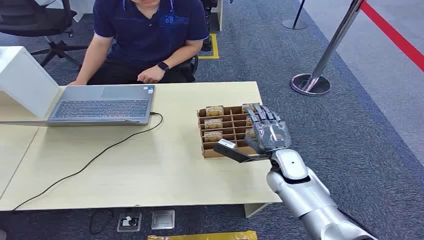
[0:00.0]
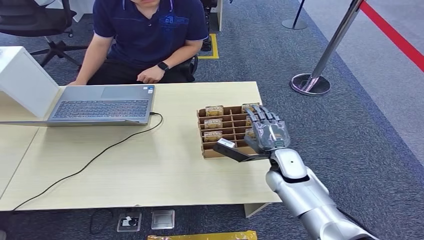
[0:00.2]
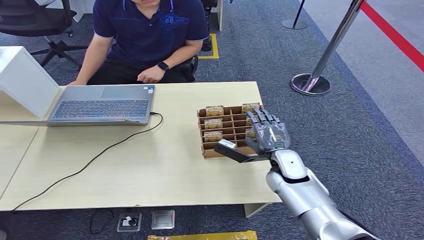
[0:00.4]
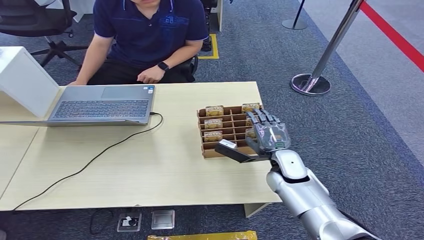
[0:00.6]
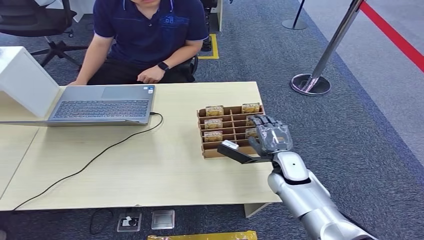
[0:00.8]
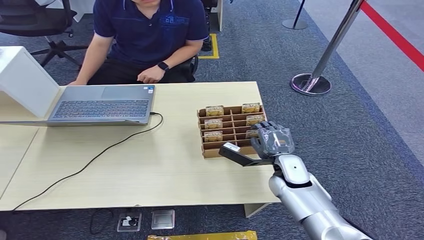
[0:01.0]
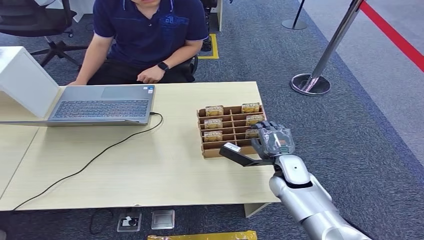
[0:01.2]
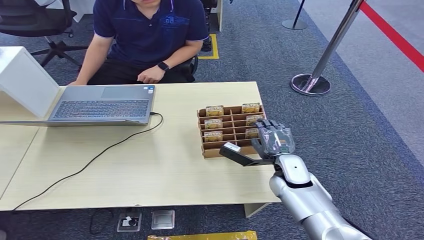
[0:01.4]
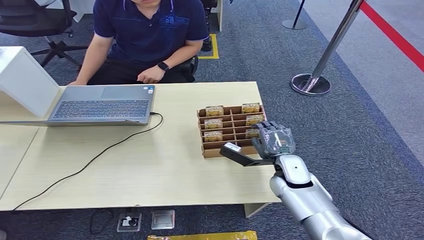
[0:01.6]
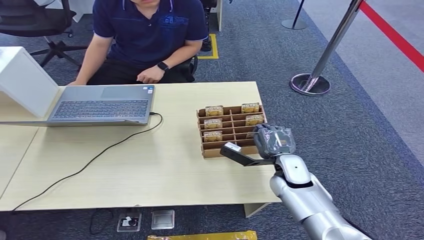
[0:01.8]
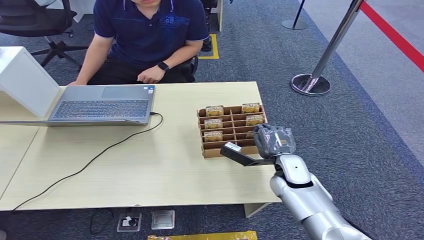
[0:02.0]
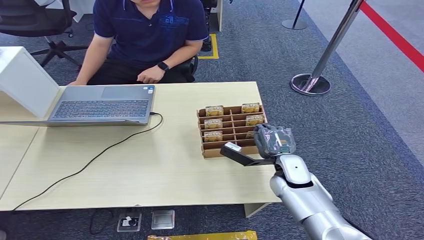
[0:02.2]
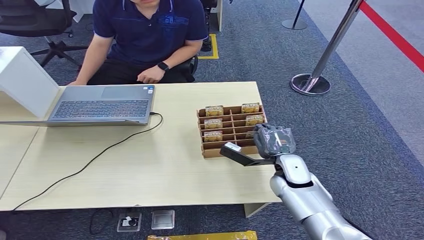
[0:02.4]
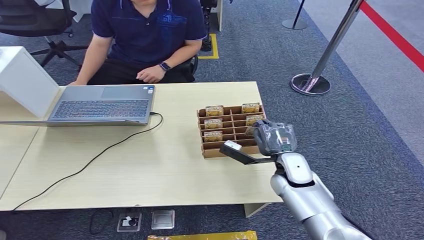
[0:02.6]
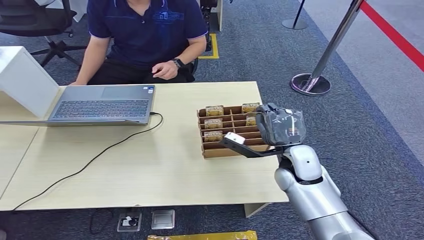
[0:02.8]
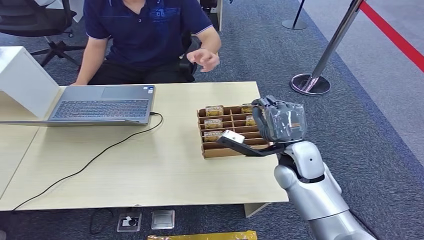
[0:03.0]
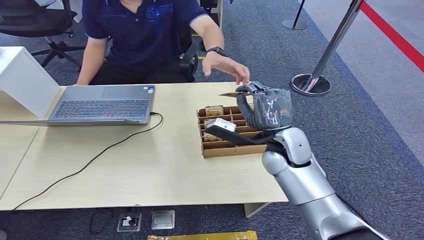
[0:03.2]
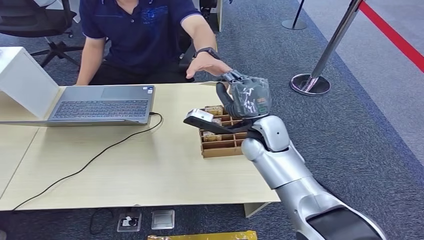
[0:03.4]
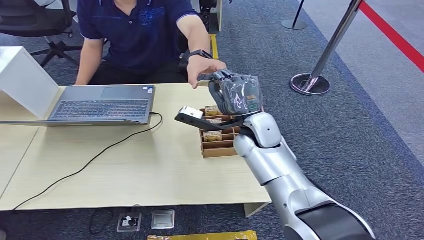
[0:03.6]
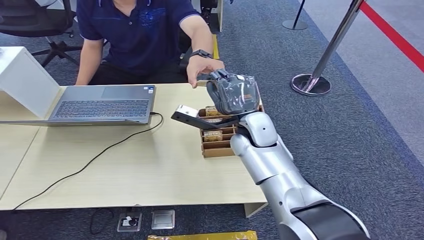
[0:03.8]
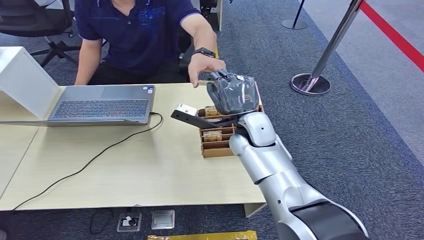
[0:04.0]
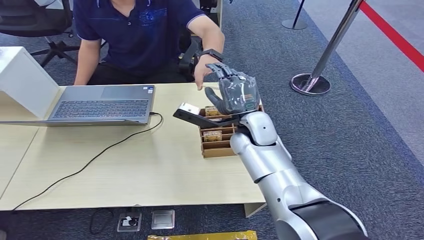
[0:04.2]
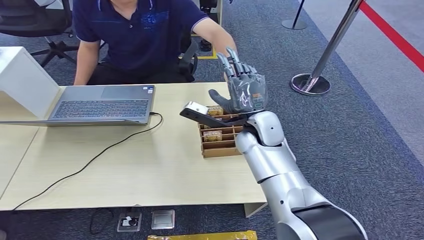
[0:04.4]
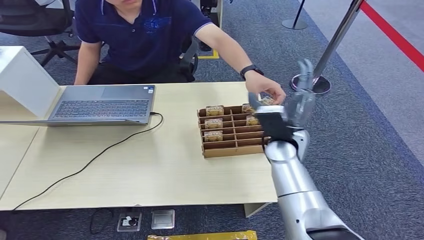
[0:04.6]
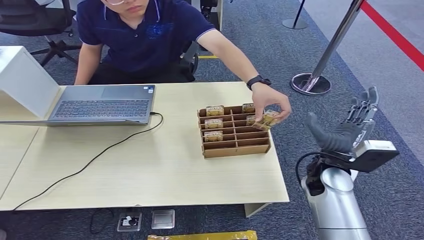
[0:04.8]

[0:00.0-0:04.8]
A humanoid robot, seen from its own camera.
Task of the whole recording: Pick up the card and hand it over to the target person.
Step, 0:00.0 to 0:02.6: Pick up the key card from the card box.
Step, 0:03.0 to 0:04.8: Hand the key card to the target.
0:01.6 to 0:03.2: The right hand travels upward, to the left and forward by approximately 15 cm.
0:03.2 to 0:04.8: The right hand goes about 25 cm to the right and backward.

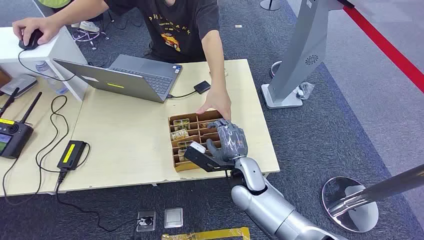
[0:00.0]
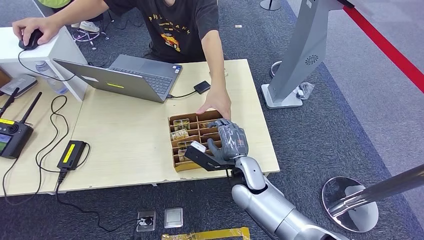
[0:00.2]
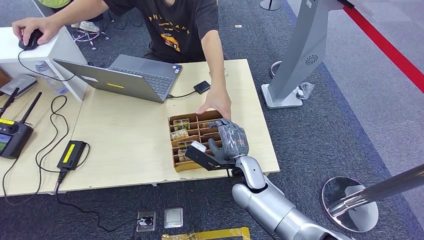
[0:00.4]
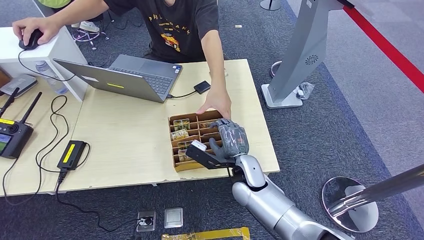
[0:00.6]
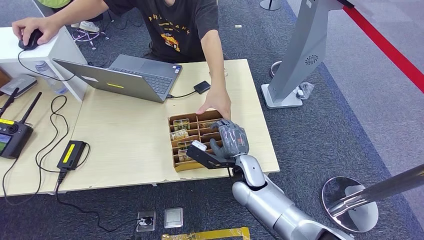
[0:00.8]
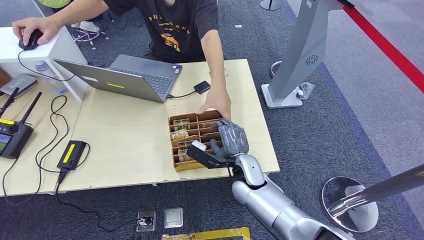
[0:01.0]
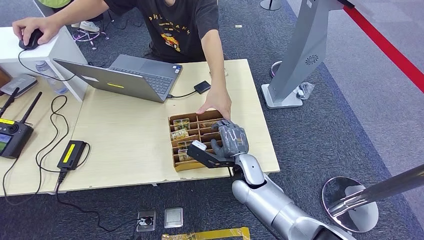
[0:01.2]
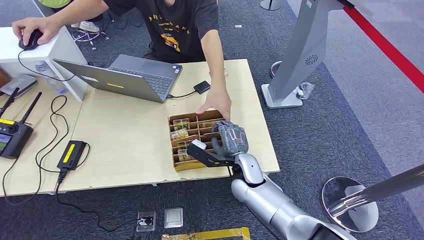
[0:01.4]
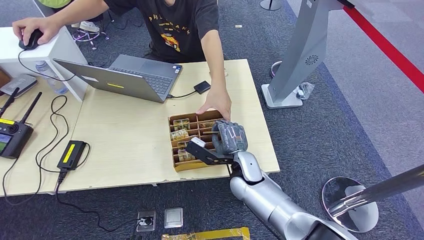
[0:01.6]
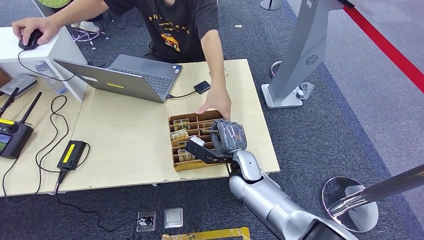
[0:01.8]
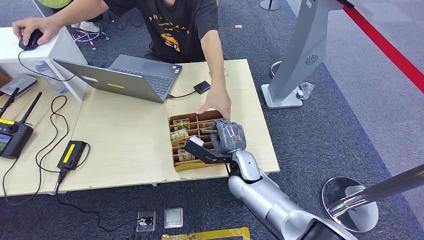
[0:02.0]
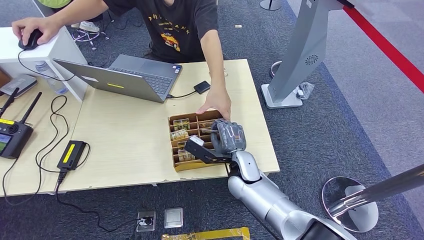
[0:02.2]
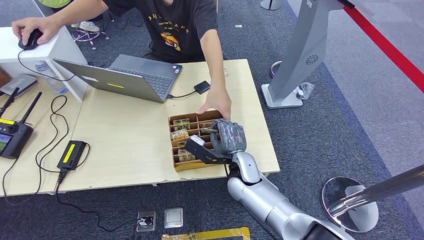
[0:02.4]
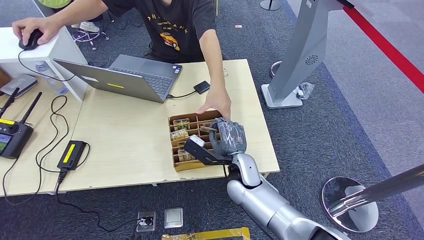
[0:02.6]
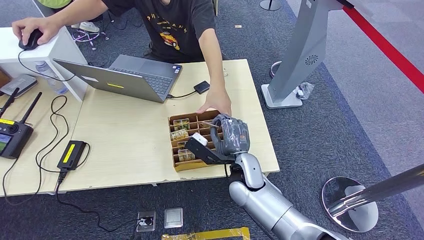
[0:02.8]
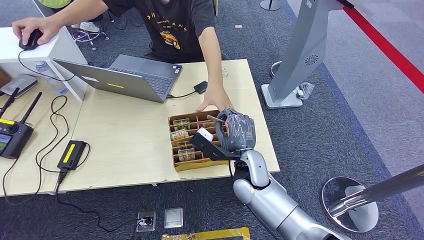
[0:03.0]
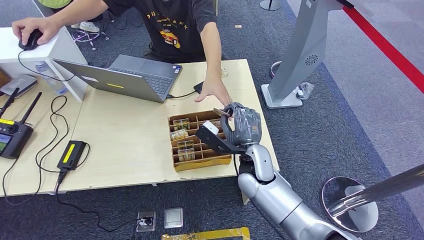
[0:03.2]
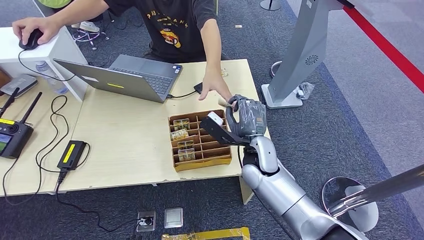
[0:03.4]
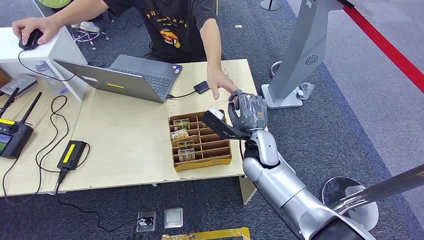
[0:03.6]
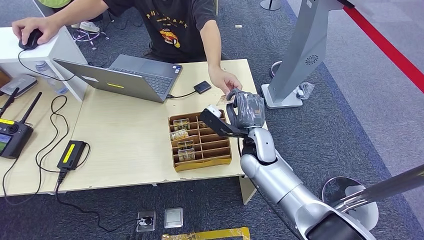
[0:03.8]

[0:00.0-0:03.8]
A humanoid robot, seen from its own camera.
Task of the whole recording: Pick up the card and hand it over to the target person.
Step, 0:00.0 to 0:03.0: Pick up the key card from the card box.
Step, 0:03.2 to 0:03.8: Hand the key card to the target.
0:01.2 to 0:02.6: The right hand travels upward by approximately 5 cm.
0:02.6 to 0:03.8: The right hand shifts some 5 cm forward.

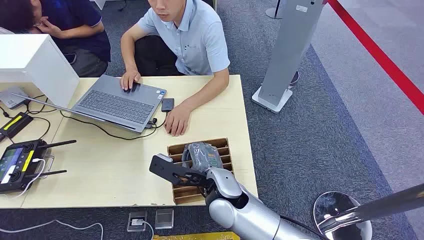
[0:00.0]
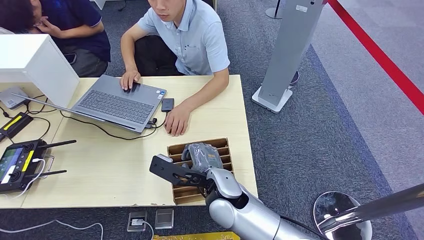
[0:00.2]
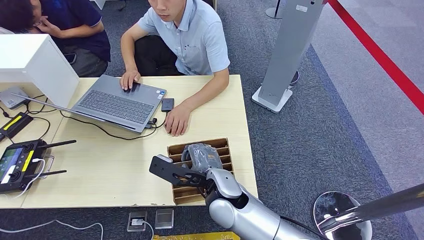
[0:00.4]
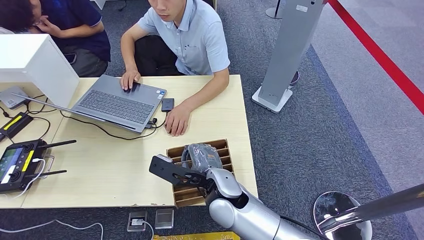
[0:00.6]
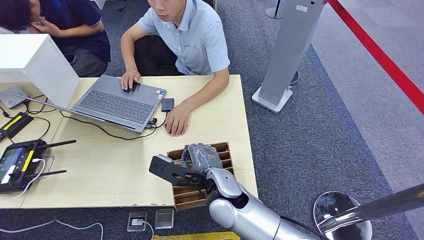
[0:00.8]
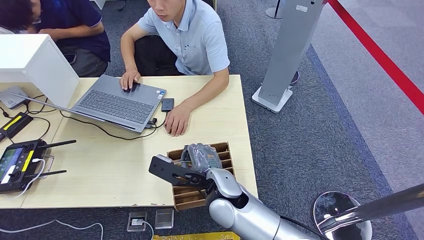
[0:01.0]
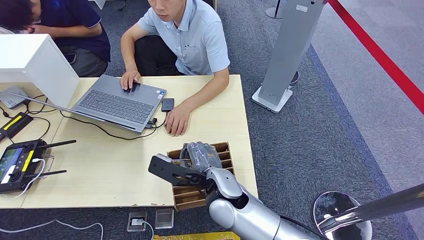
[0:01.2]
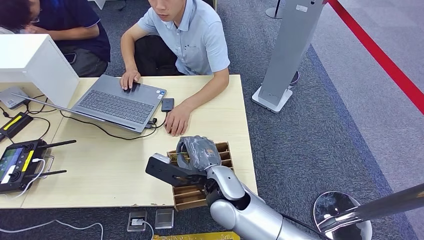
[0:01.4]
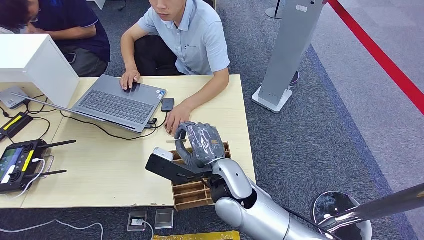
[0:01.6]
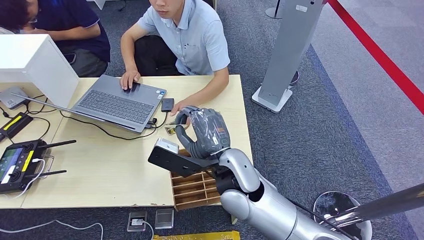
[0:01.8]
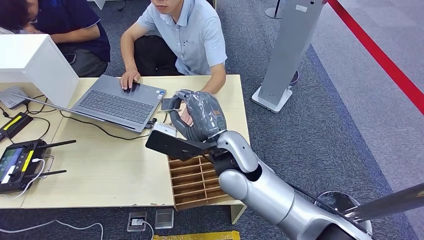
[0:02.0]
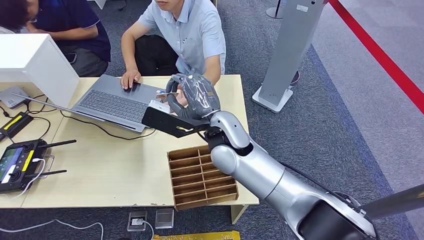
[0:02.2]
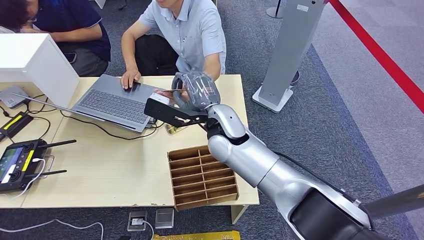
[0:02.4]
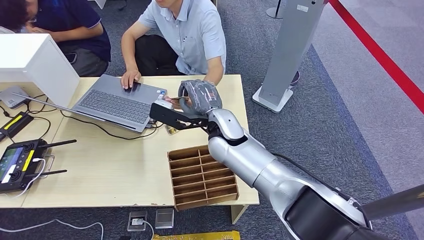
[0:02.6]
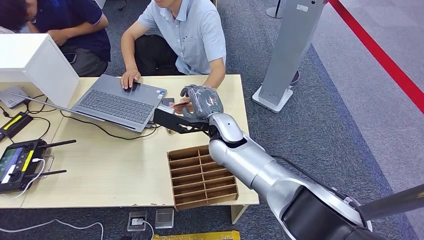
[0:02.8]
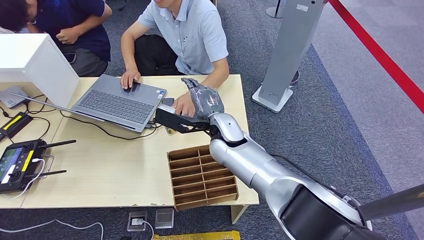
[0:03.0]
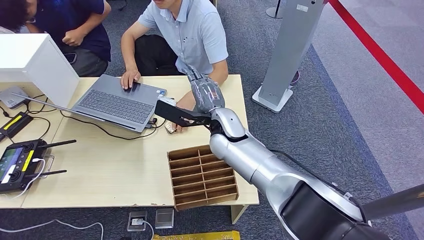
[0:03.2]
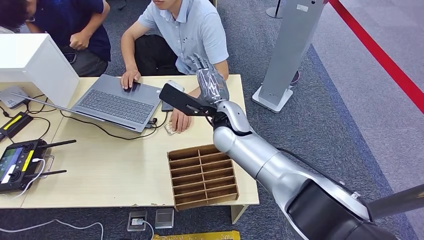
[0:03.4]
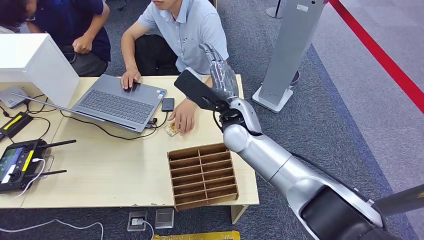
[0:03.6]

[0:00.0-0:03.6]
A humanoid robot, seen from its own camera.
Task of the whole recording: Pick up the card and hand it over to the target person.
Step, 0:00.0 to 0:01.6: Pick up the key card from the card box.
Step, 0:01.8 to 0:03.6: Hand the key card to the target.
0:01.8 to 0:03.6: The right hand heads to the right, covering approximately 10 cm.
